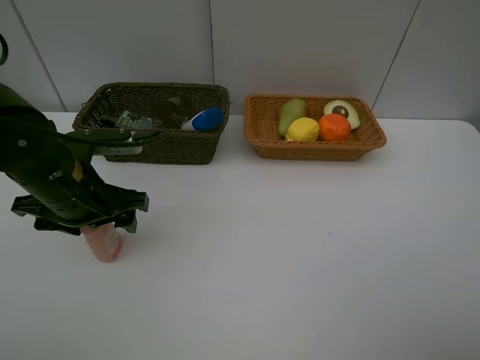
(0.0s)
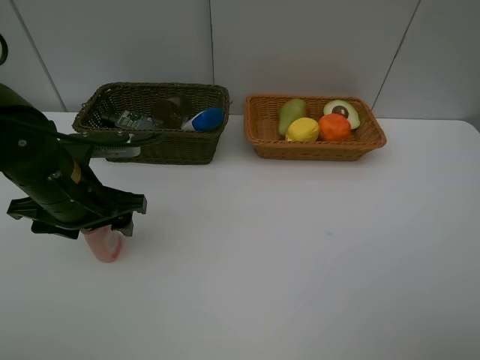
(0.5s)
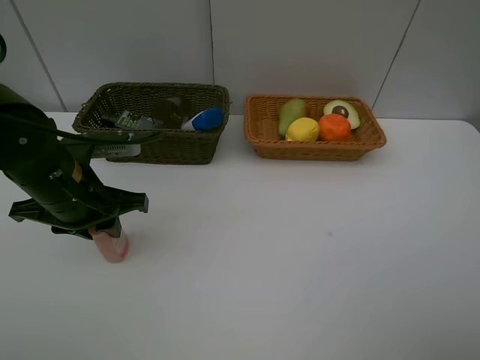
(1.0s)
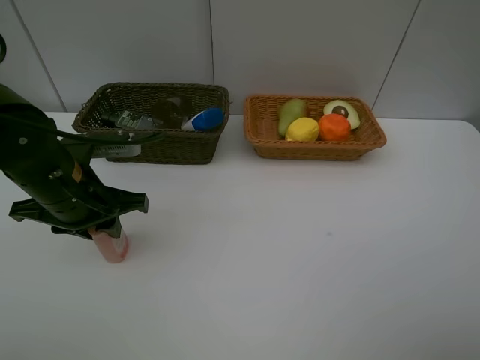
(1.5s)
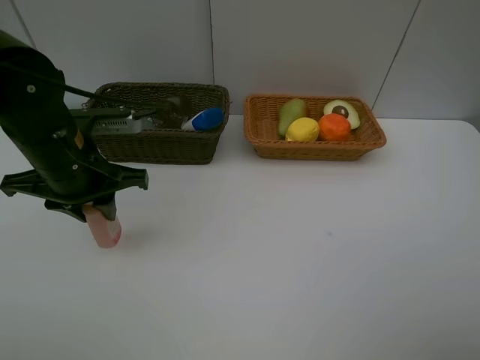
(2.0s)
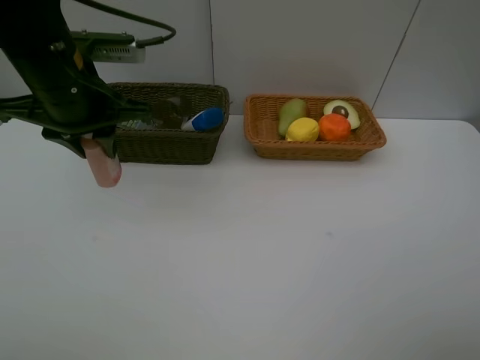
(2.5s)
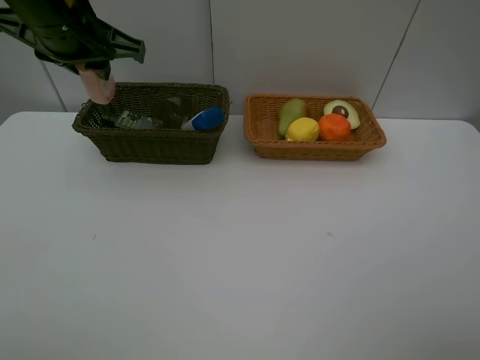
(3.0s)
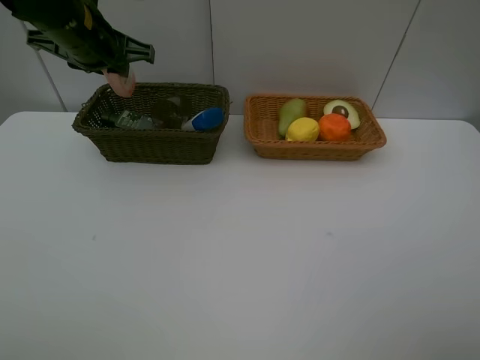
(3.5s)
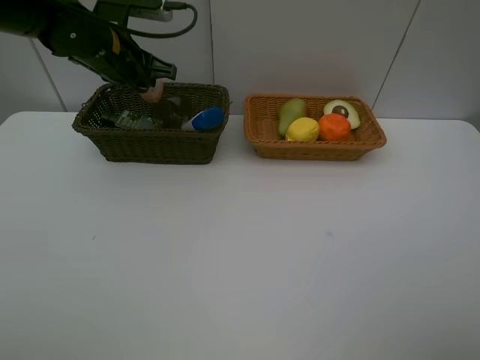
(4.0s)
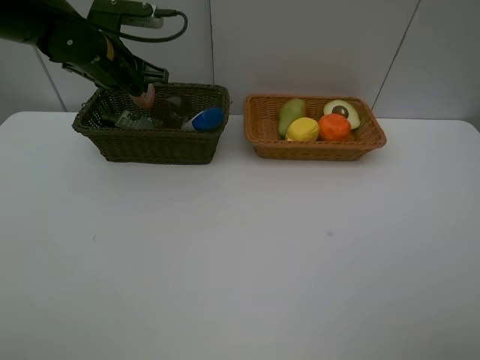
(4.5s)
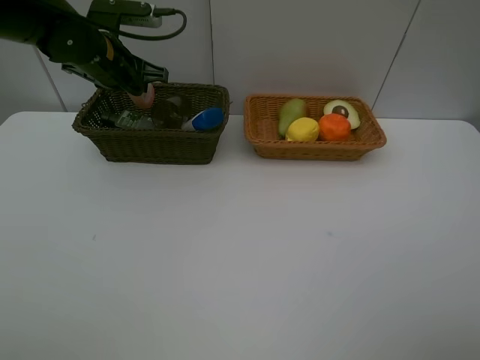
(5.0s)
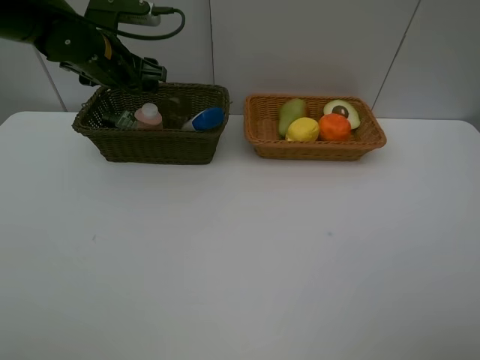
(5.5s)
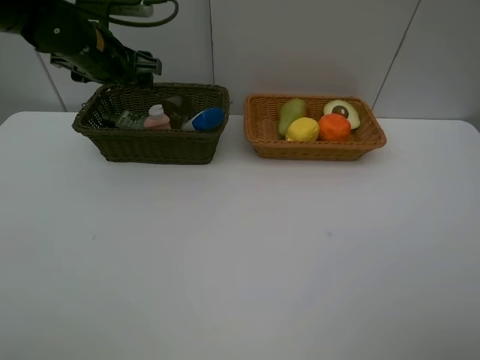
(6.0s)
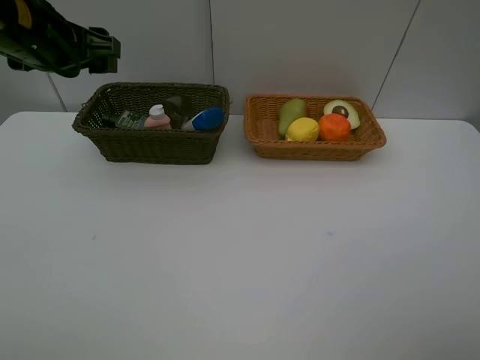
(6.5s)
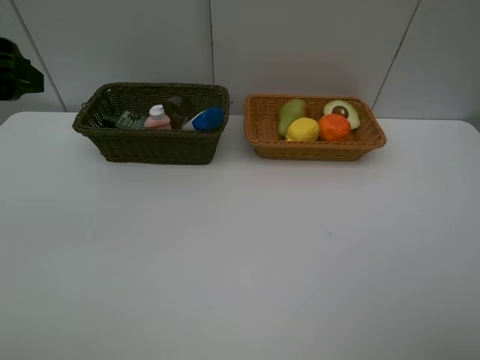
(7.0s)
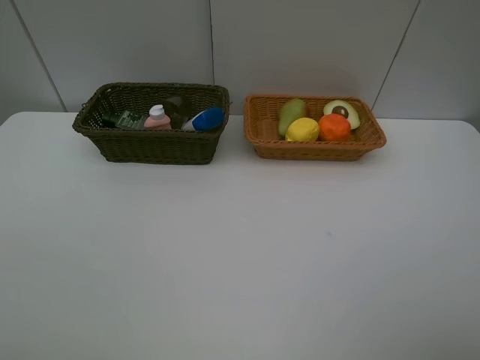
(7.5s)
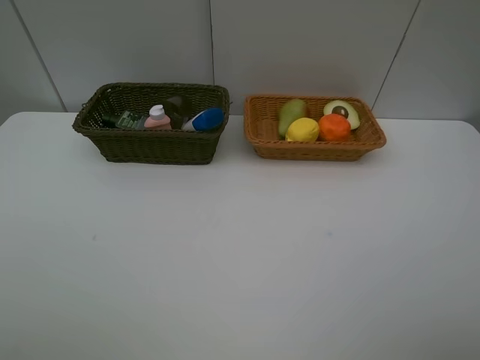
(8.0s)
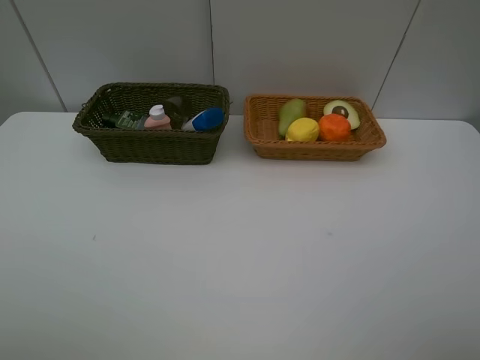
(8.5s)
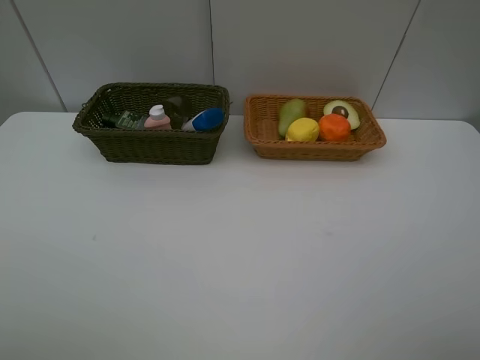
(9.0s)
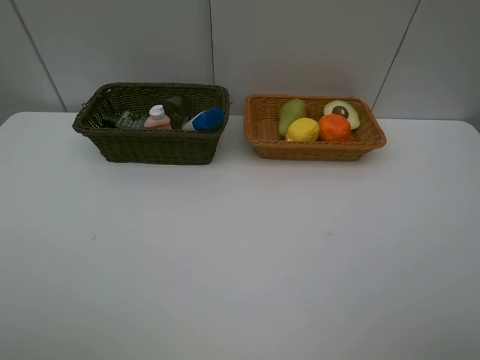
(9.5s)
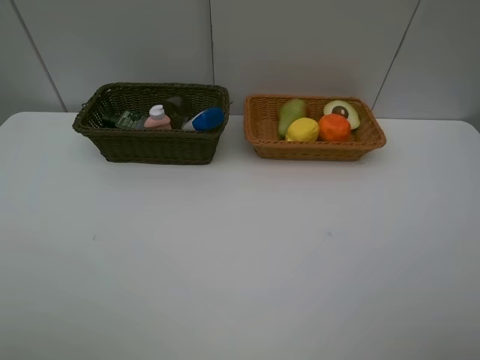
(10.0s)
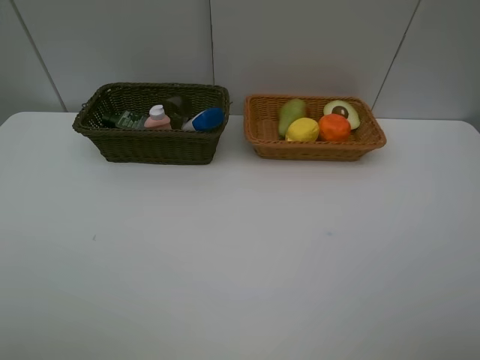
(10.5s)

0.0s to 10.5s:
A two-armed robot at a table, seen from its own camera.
Task of the whole recording: Place multiple objects separately in different baskets.
Step, 2.0s to 5.5s: Place the laundry detergent in the dark basket with left gripper.
0.0s to 2.0s: The left gripper closes its fingers.
2.0s to 4.0s: The left gripper shifts about 15 cm forward.
4.0s to 6.5s: The left gripper shifts some 10 cm backward, upward and to the left, and opens its fingers.
6.5s to 8.5s: The left gripper heads backward, covering roughly 30 cm.

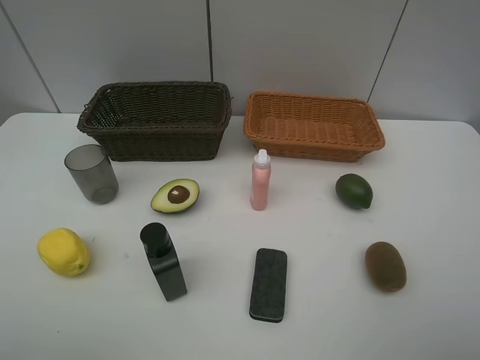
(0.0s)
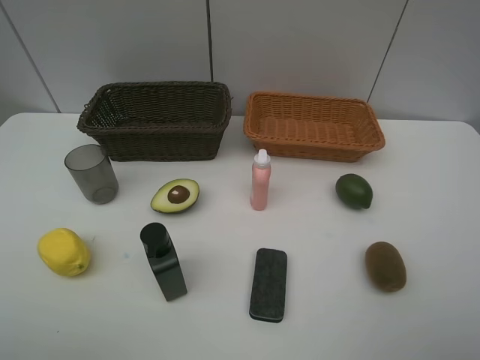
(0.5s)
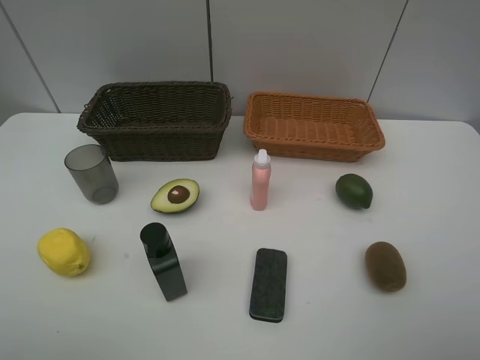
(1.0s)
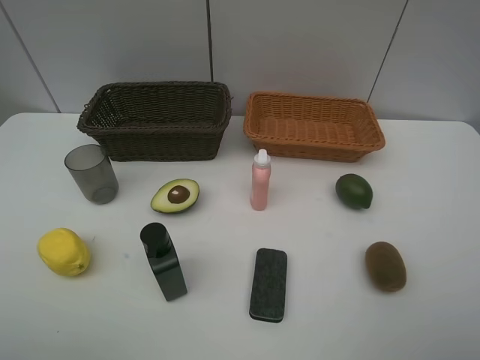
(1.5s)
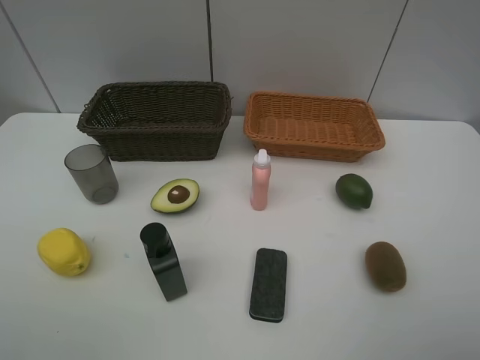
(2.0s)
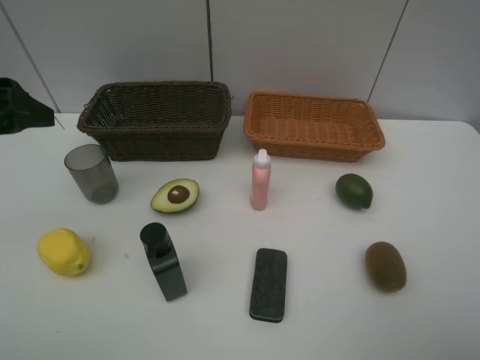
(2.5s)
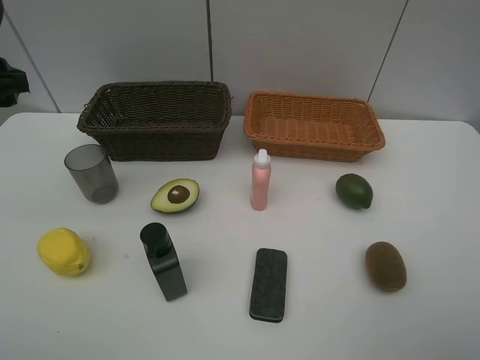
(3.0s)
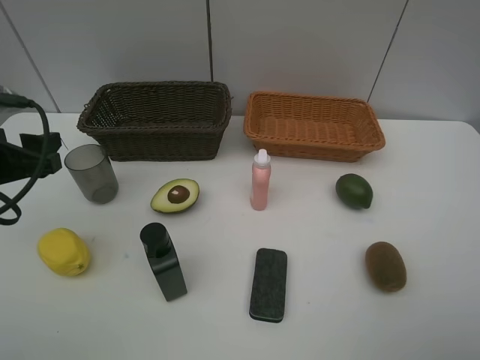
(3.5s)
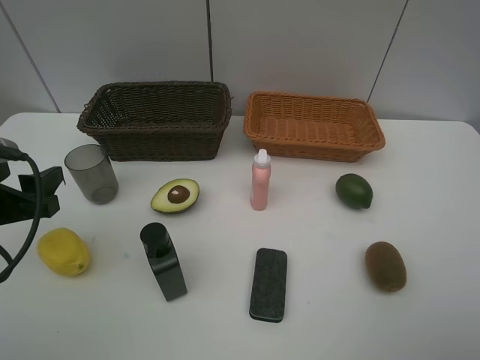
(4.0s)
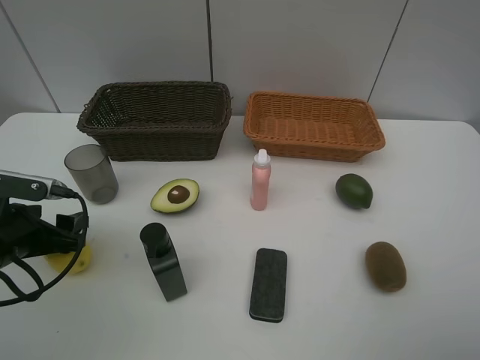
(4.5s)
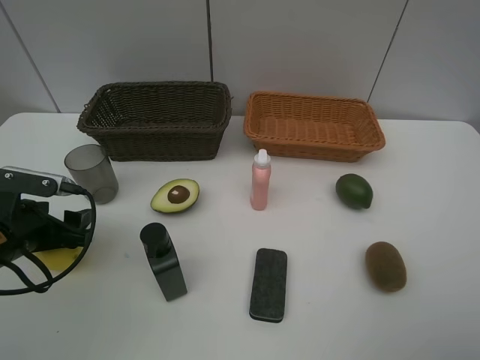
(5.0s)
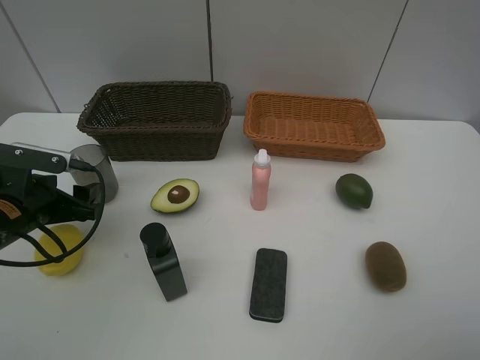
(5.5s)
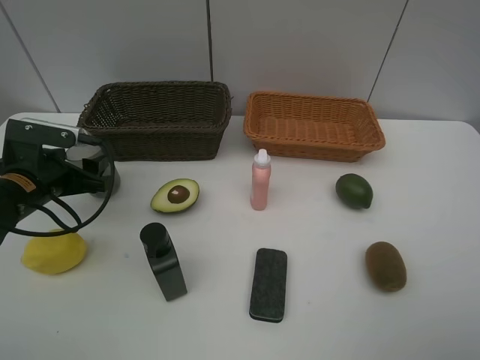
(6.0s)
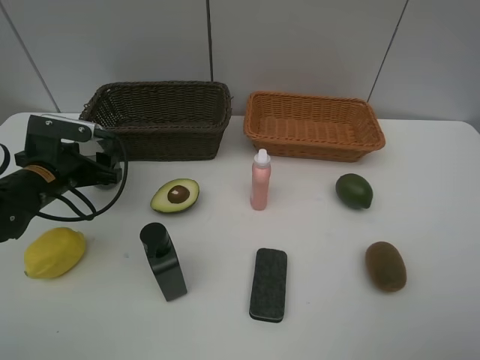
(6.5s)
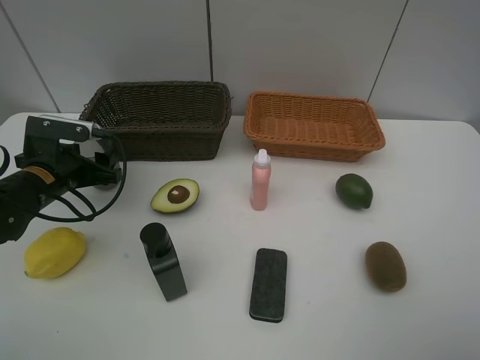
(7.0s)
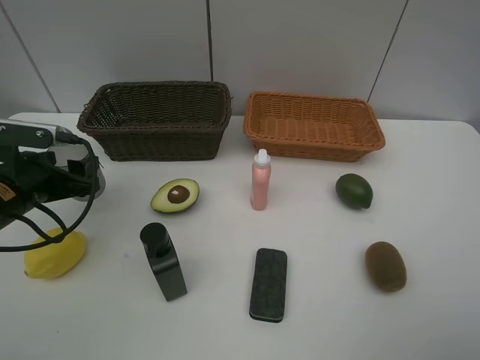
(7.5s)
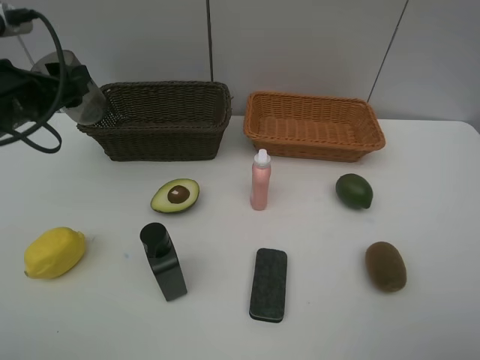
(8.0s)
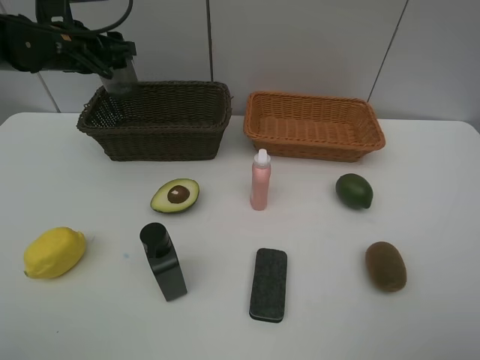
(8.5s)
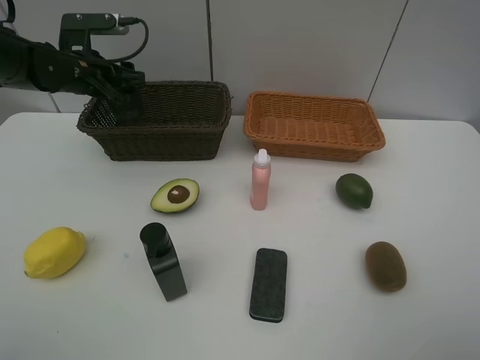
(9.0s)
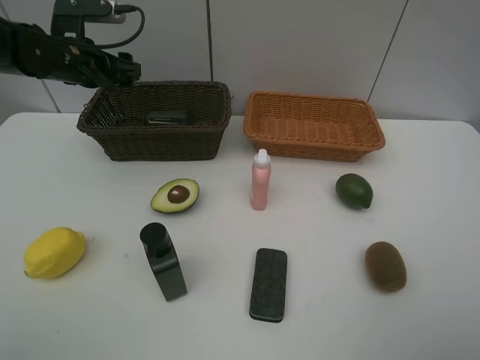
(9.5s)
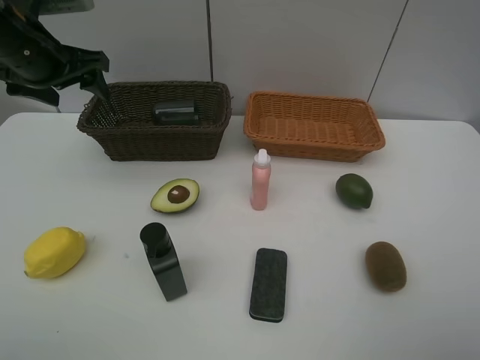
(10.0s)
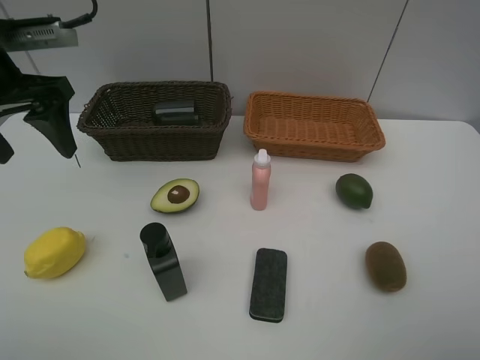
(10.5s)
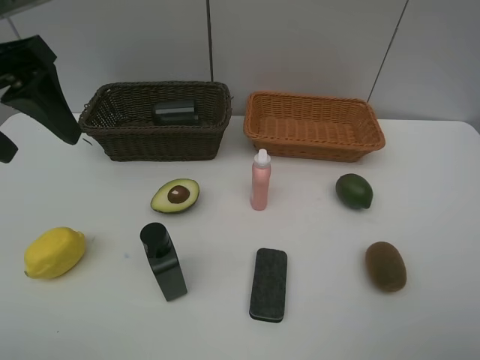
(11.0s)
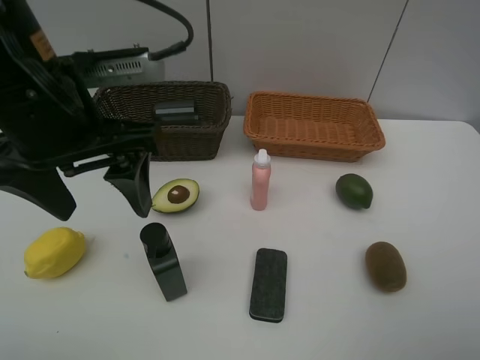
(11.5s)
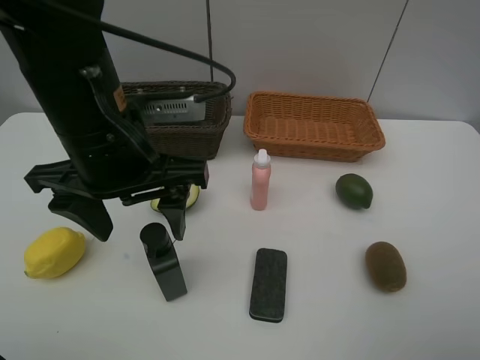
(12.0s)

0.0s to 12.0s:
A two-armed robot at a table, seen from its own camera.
Task of the whole recording: Place multiple objects separately in different baskets.
Step, 0.0s to 7.0s: Pick up gray cup with left gripper.
Step, 7.5s to 9.0s: Place the gray cup in the dark basket with left gripper.
2.0s to 4.0s: The left gripper is displaced downward and forward by approximately 15 cm.
4.0s to 6.0s: The left gripper is displaced forward and downward by some 10 cm.
6.0s to 8.0s: The left gripper heads upward, covering approximately 10 cm.
8.0s to 10.0s: The left gripper shifts roughly 5 cm forward.
10.0s to 12.0s: The left gripper travels to the right and backward by some 20 cm.

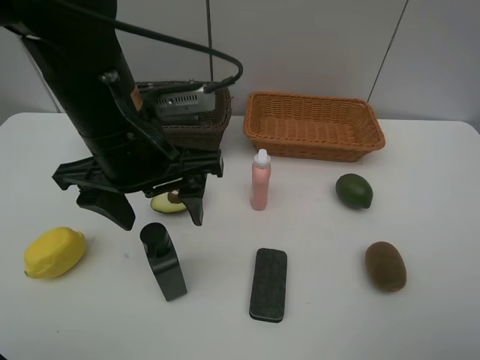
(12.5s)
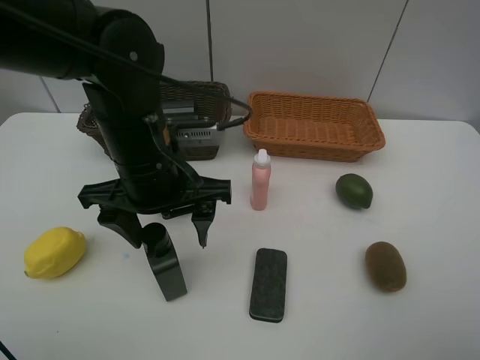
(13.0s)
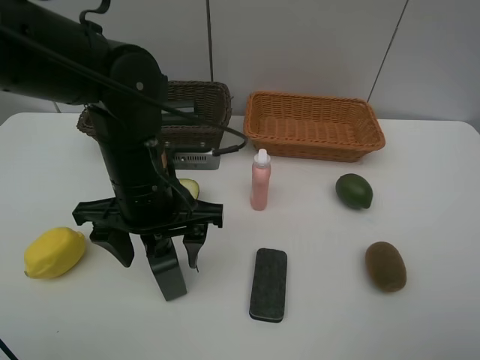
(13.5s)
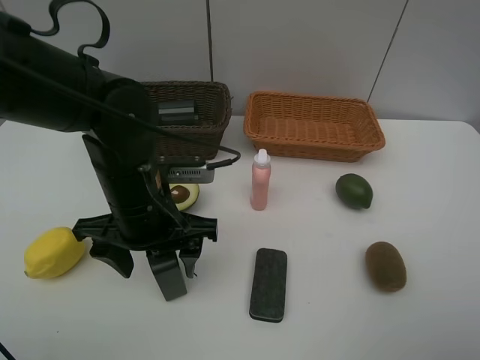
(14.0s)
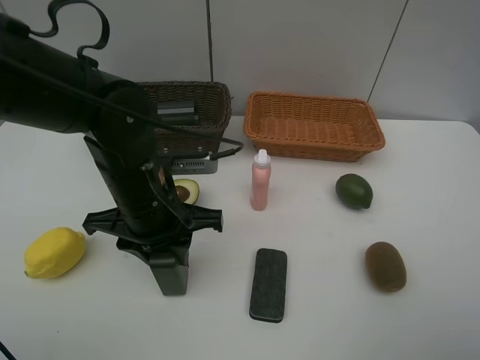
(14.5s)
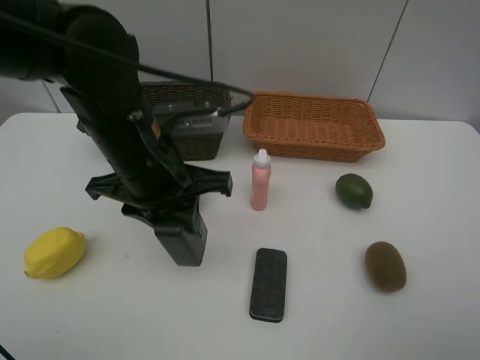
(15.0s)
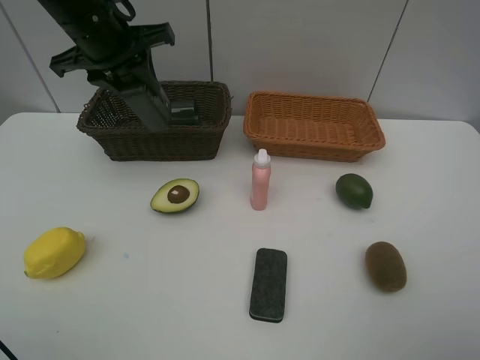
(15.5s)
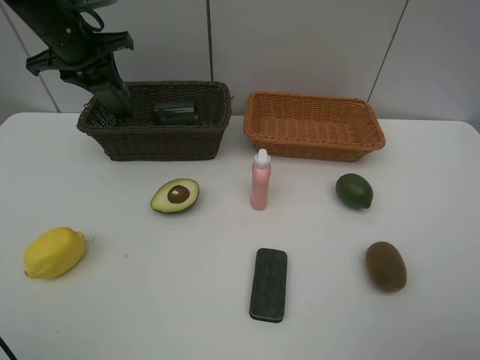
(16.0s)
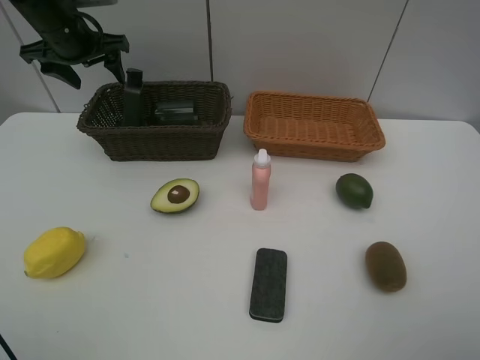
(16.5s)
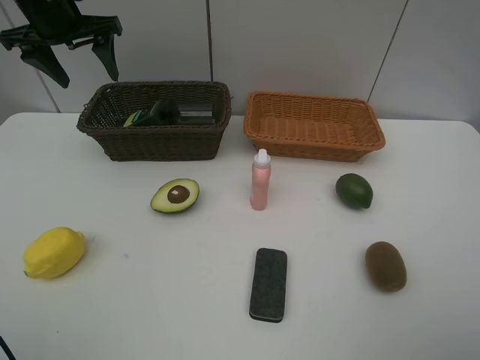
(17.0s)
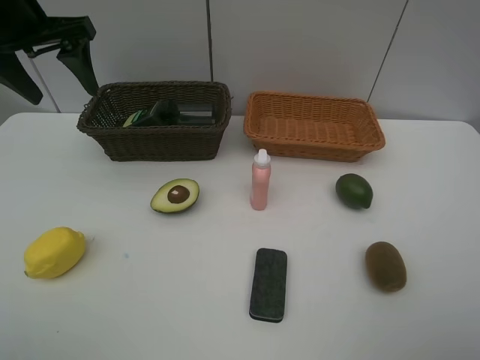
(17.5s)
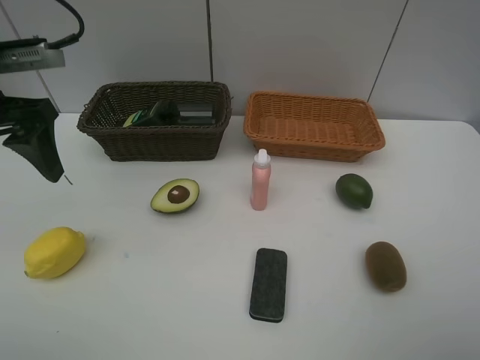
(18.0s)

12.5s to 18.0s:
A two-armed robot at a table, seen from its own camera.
Task of the whole recording: Place multiple objects separately in different baskets.
Step, 12.5s to 14.5s: Pick up the hard facial cleanser with left gripper.
Step, 15.0s to 16.0s: Place the hard facial cleanser in the dark basket with left gripper.
12.5s to 14.5s: The left gripper is displaced downward by some 10 cm, and closes up.
14.5s to 16.0s: The left gripper travels forward, to the left and upward by about 30 cm.
16.0s to 18.0s: The left gripper travels backward by roughly 20 cm, and opens its fingers.
